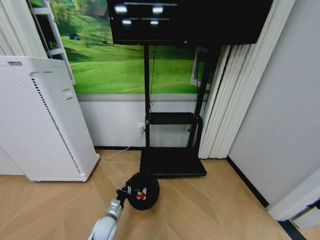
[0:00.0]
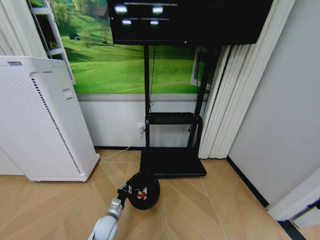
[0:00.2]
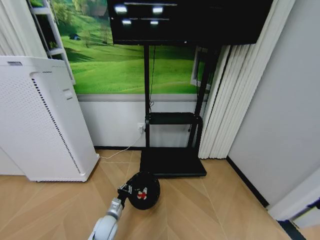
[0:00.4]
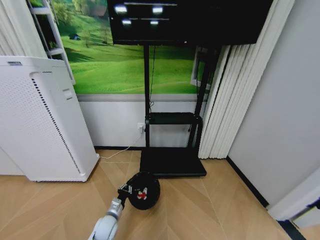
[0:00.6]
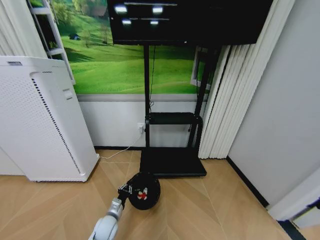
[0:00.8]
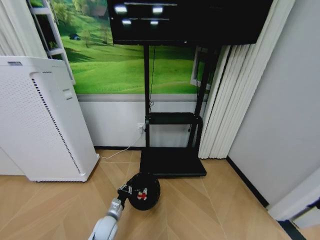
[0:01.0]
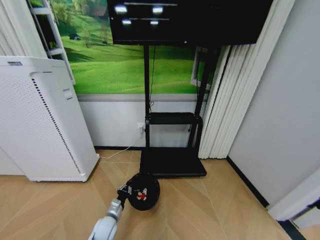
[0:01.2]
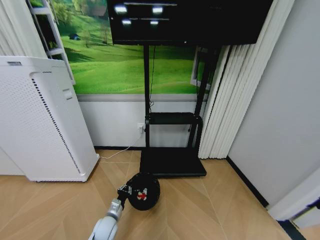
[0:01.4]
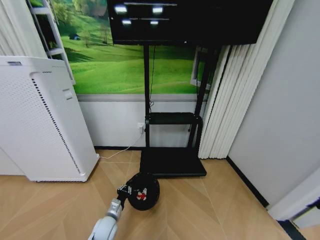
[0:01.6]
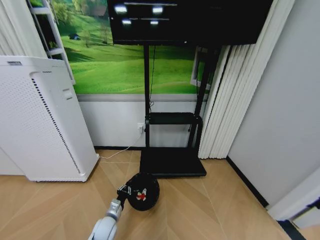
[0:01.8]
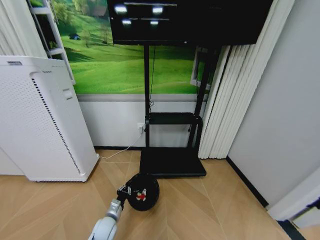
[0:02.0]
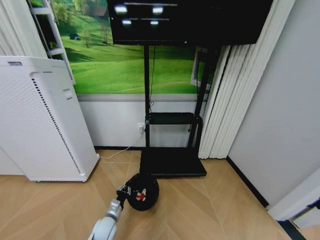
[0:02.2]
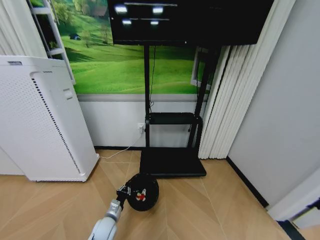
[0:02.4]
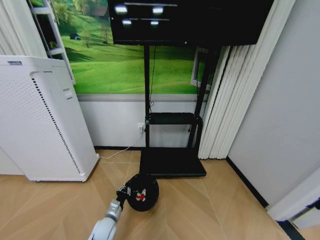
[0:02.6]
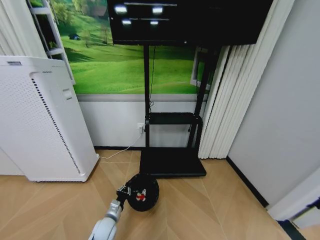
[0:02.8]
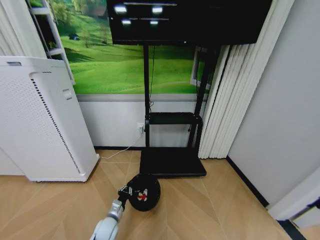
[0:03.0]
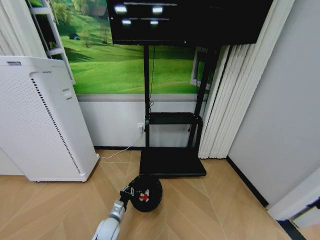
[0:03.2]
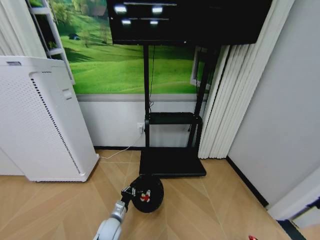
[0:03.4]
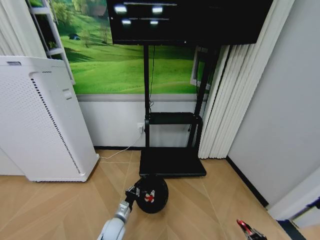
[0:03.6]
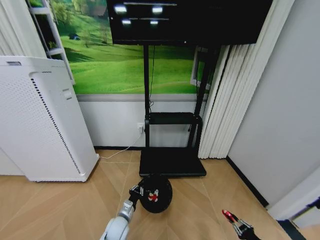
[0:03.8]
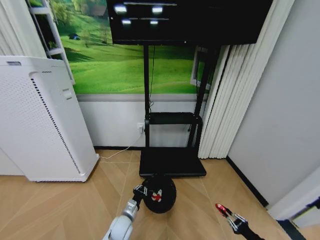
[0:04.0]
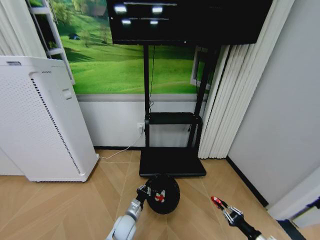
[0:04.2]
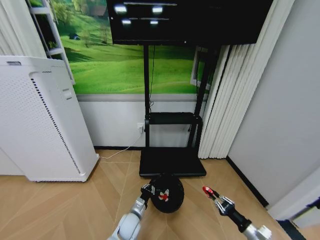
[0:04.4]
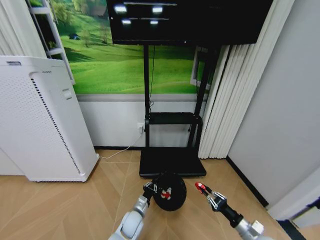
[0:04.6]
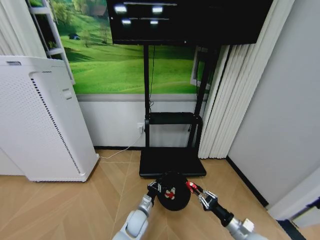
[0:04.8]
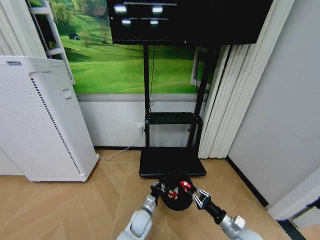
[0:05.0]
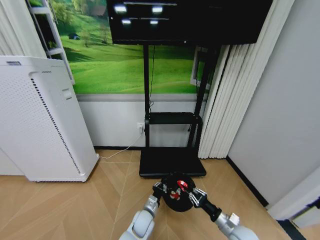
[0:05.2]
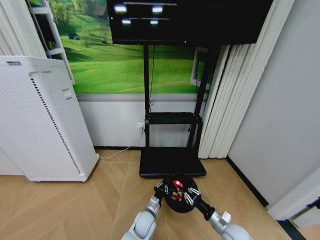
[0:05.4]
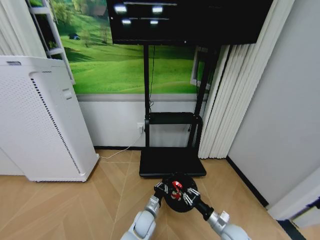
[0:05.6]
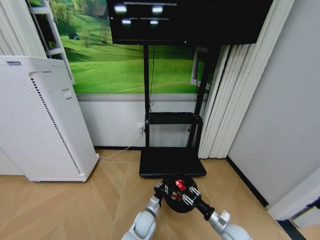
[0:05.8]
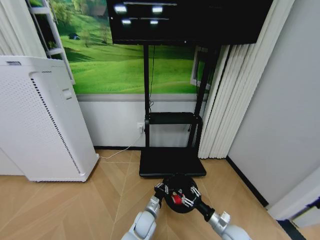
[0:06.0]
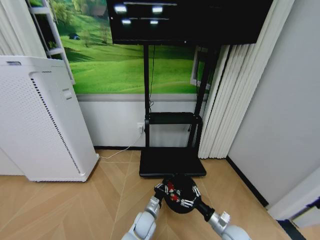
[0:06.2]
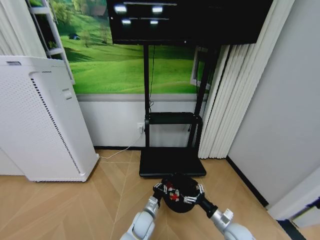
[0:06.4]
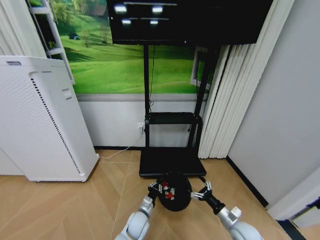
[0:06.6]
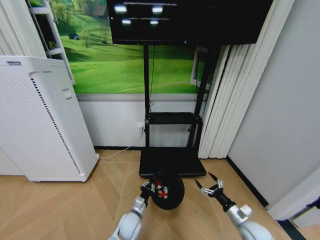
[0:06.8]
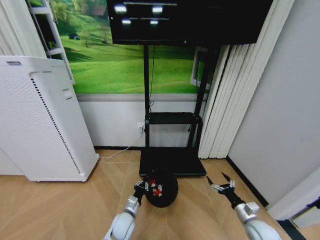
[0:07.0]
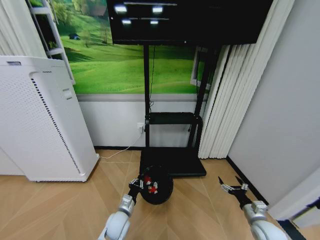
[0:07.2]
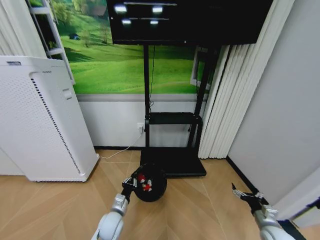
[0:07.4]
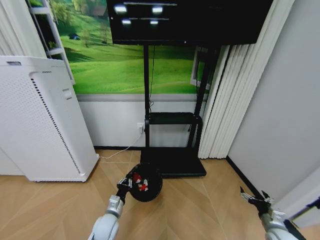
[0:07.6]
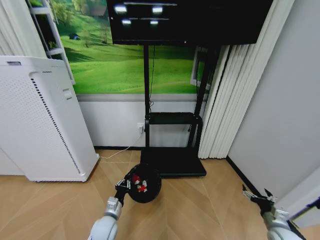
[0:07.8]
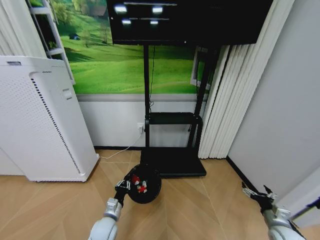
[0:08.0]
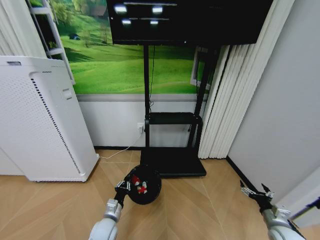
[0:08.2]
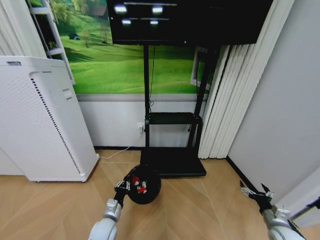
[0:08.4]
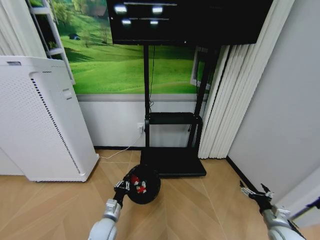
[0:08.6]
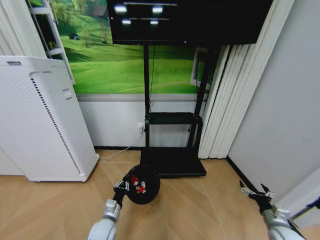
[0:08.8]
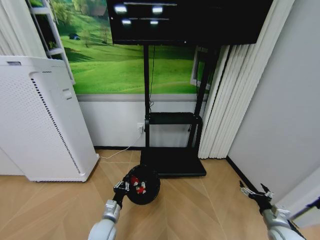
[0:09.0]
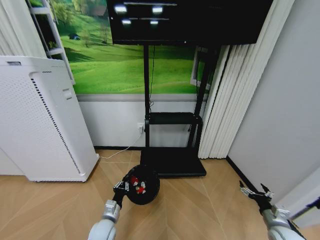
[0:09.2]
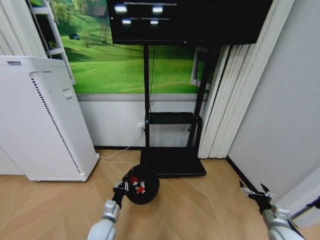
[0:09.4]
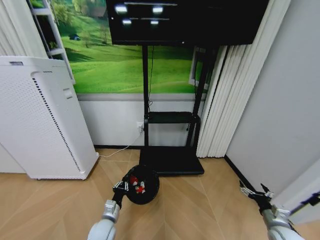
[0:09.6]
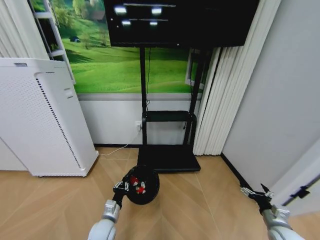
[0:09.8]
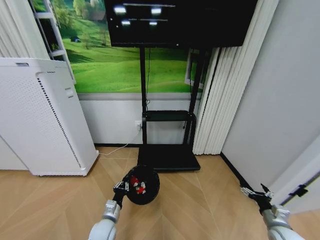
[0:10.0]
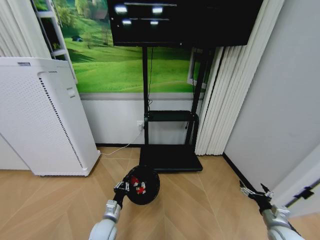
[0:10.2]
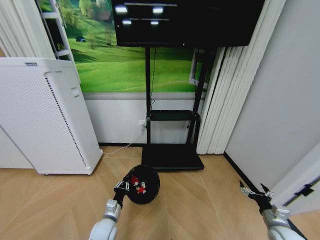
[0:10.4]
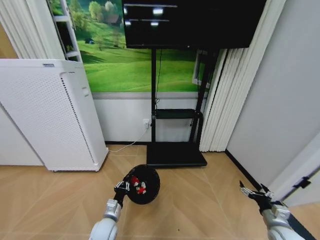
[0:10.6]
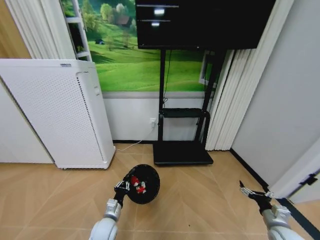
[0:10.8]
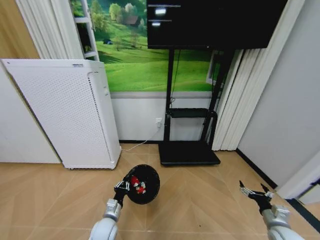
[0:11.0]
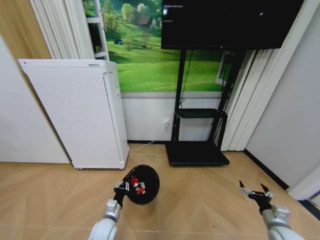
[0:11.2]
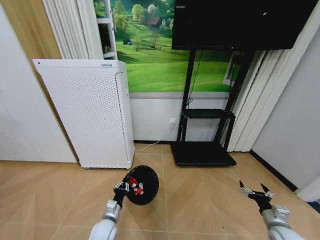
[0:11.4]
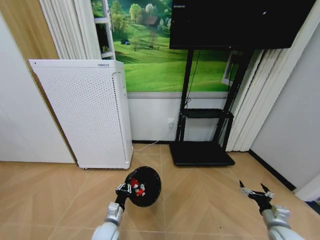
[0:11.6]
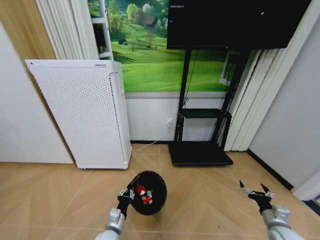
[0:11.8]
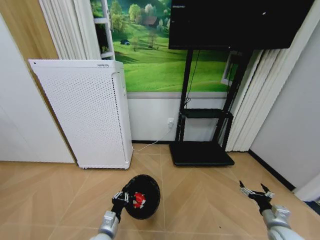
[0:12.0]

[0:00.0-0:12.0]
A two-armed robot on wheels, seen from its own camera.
Task of the whole recording: Pick up the trash bin and place the garbage on the floor into it.
0:03.0 to 0:04.4: The right gripper travels upward, forward and to the left by about 20 cm. Meanwhile the left gripper is displaced to the right by about 10 cm.
0:04.4 to 0:06.0: The right gripper travels to the left and forward by about 15 cm, and opens up; the left gripper is displaced to the right by some 5 cm.
0:06.0 to 0:07.6: The right gripper shifts about 15 cm to the right, and opens up, while the left gripper travels to the left by roughly 15 cm.
0:07.6 to 0:09.0: The grippers make only small movements.
0:09.0 to 0:10.4: Both grippers stay put.
0:10.4 to 0:12.0: The left gripper shifts roughly 5 cm backward.

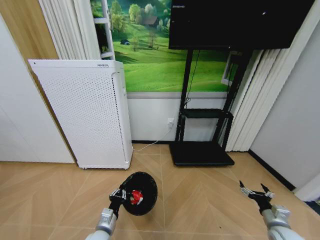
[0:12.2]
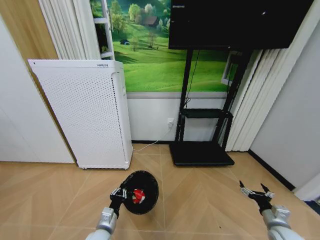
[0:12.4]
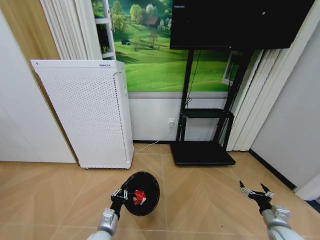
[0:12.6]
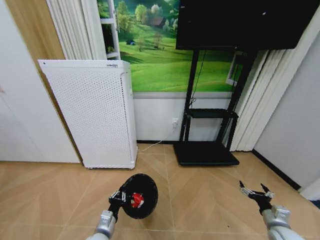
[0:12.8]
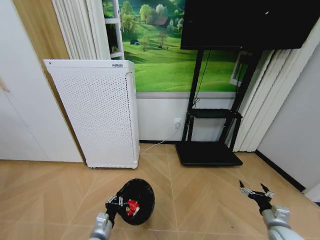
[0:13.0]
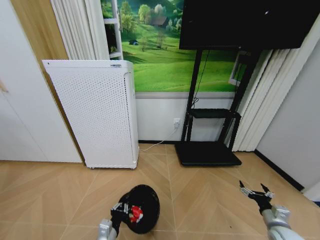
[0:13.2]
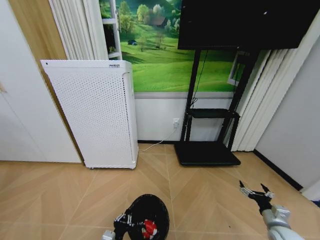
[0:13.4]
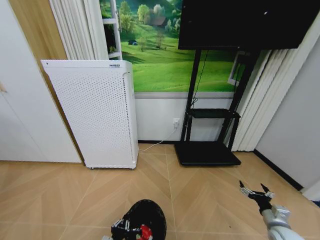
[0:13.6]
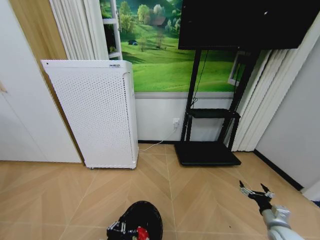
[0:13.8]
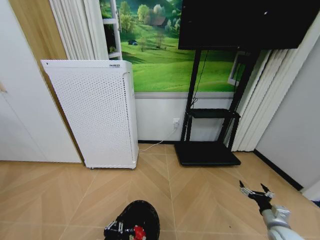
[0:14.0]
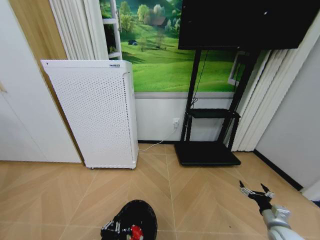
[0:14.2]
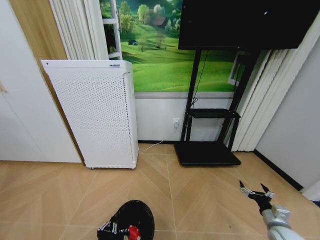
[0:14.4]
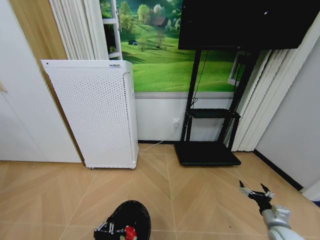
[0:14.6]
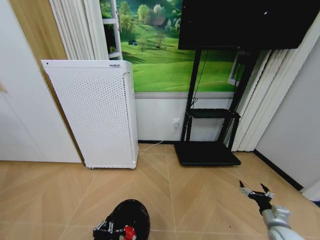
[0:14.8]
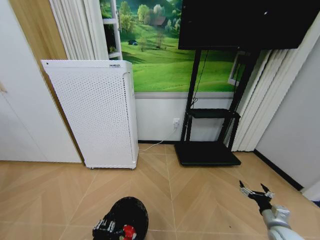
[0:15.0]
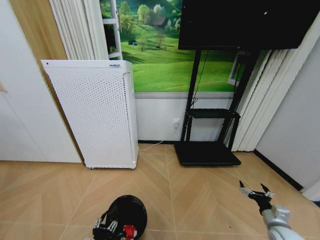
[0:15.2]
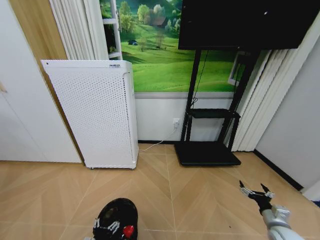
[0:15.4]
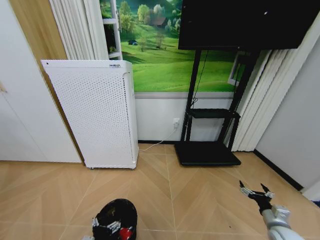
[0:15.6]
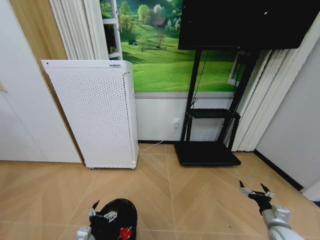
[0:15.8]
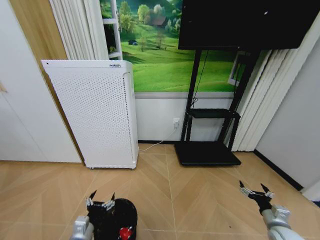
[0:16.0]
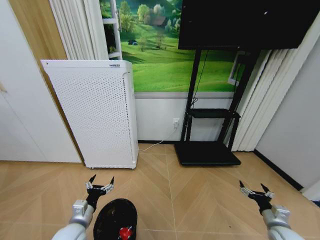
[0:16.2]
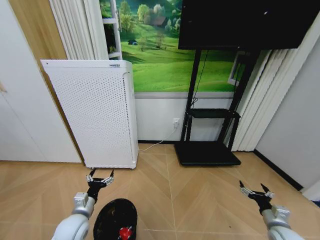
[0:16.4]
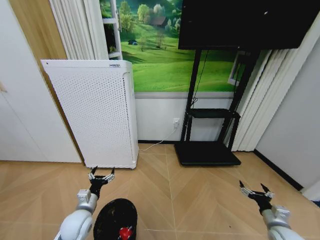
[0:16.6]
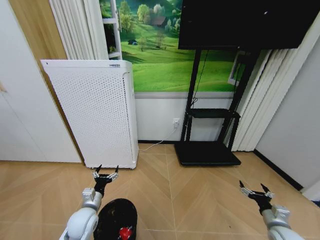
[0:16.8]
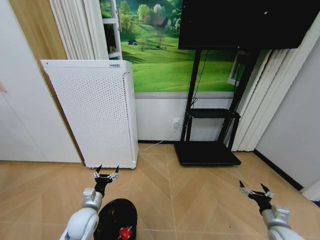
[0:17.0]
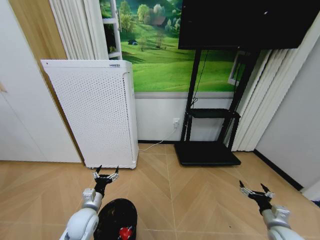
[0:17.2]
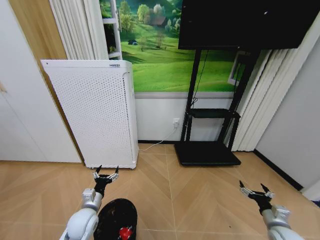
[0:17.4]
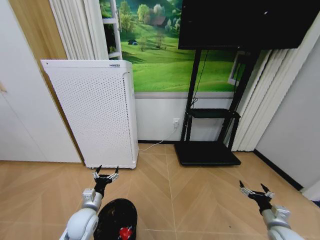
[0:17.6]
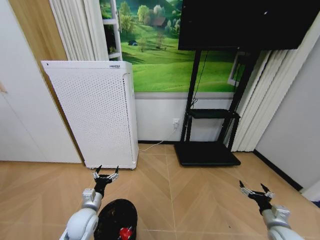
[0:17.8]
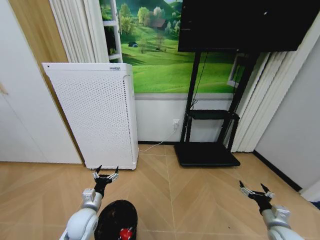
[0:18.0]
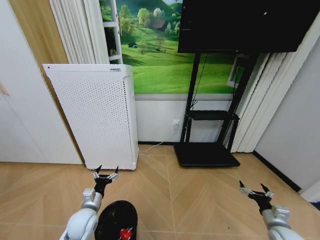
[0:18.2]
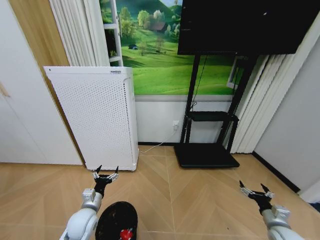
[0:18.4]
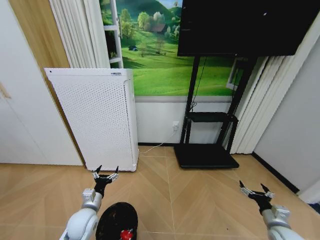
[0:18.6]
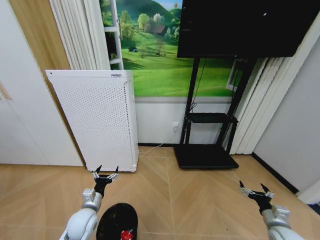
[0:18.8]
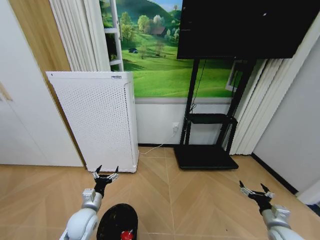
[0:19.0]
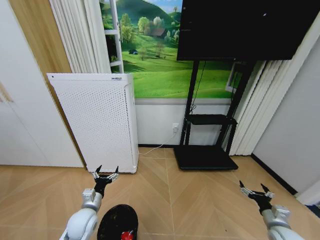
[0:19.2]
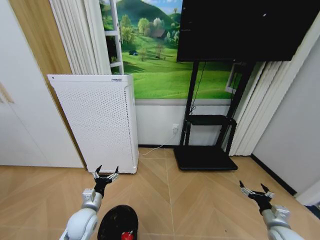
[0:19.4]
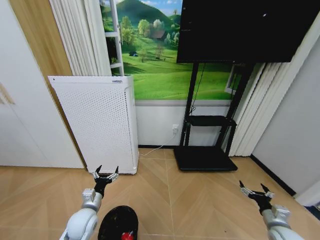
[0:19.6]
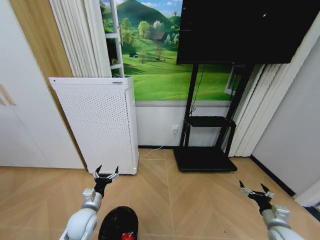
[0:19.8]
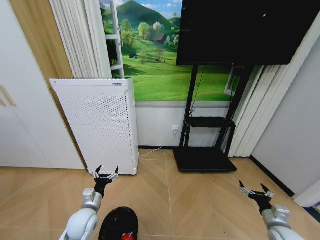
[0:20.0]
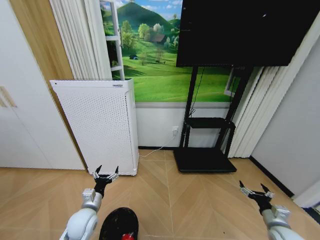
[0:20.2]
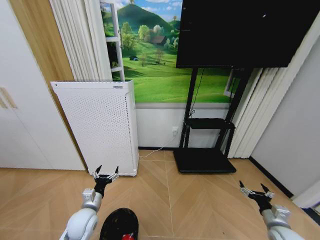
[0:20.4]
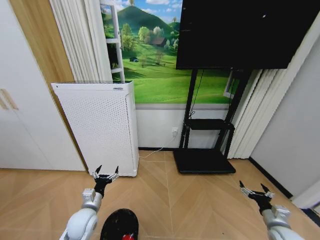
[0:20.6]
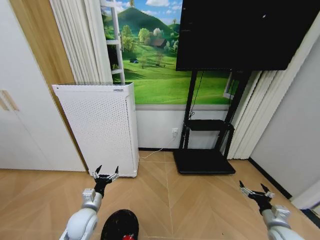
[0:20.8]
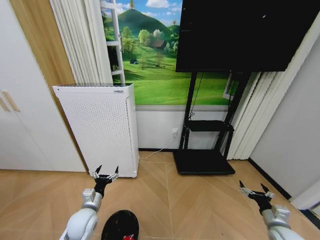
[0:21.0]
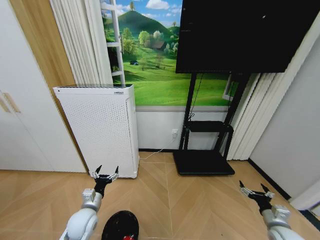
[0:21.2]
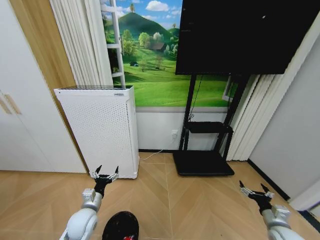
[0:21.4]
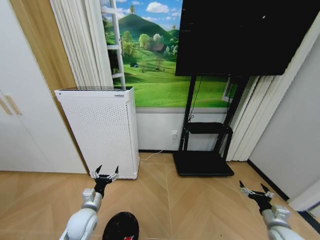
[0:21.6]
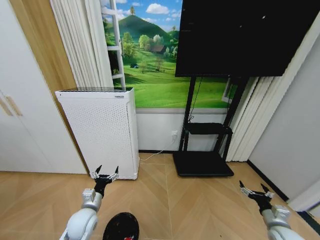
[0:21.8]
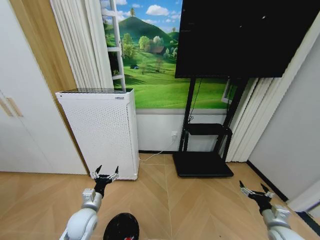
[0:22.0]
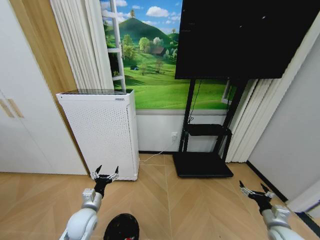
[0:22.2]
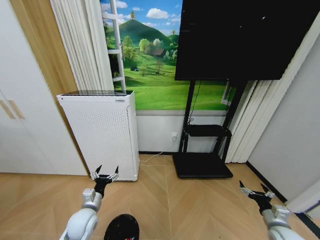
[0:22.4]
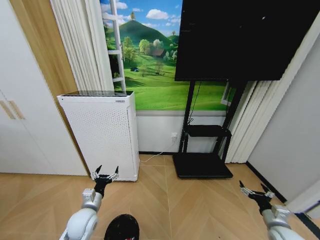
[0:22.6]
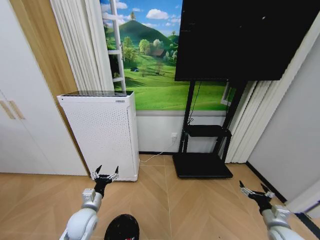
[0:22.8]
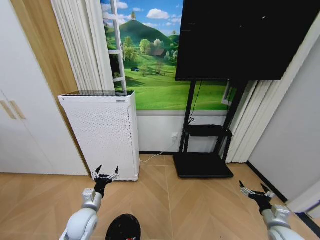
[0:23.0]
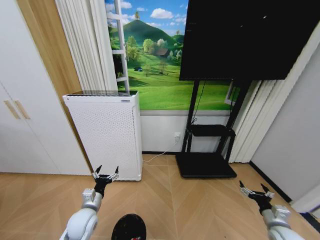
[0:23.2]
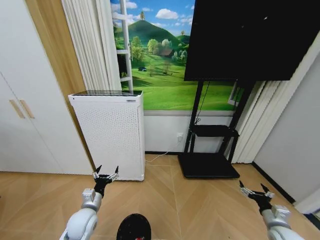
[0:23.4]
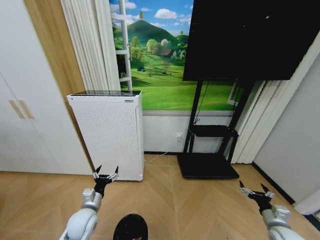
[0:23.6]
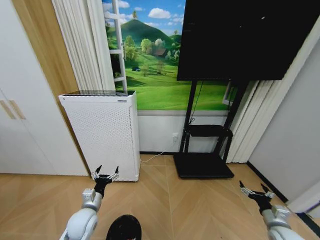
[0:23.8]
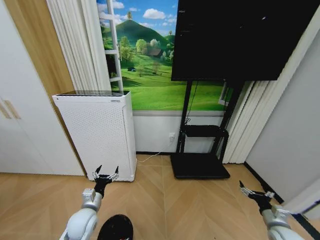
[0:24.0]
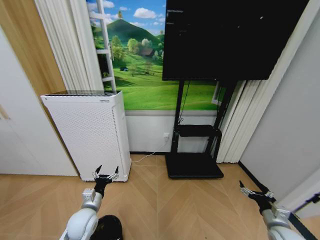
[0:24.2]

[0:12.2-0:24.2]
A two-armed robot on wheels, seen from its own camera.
Task of the whole recording: Pick up the trash bin and place the garbage on the floor into it.
0:12.2 to 0:13.8: The left gripper is displaced backward by approximately 10 cm.
0:13.8 to 0:15.2: The left gripper opens up.
0:15.2 to 0:16.6: The left gripper travels forward by about 15 cm, and opens up.
0:16.6 to 0:18.2: There are only small adjustments of the grippers.
0:18.2 to 0:22.6: Both grippers stay about where they are.
